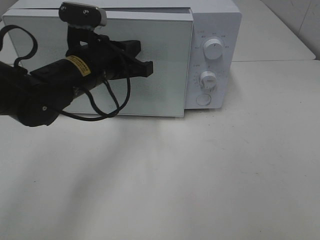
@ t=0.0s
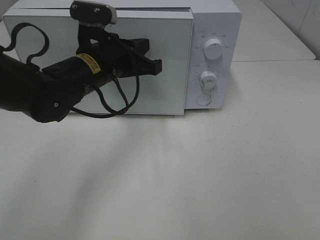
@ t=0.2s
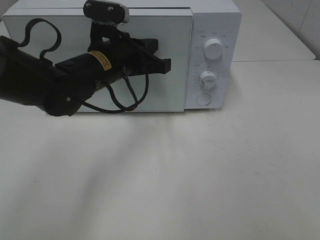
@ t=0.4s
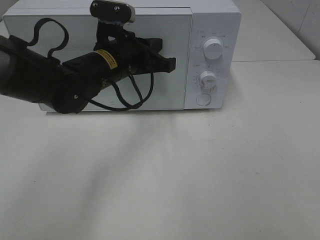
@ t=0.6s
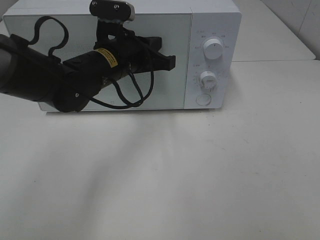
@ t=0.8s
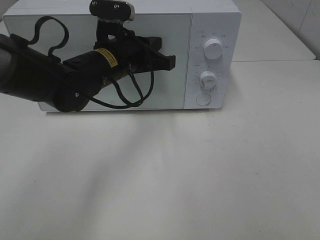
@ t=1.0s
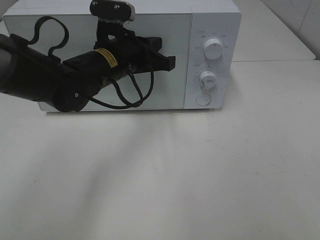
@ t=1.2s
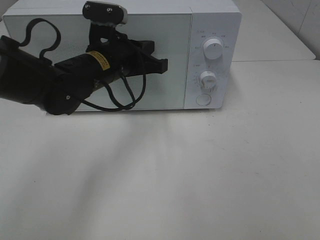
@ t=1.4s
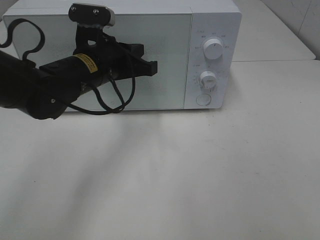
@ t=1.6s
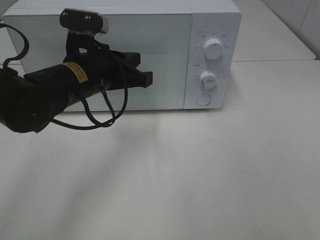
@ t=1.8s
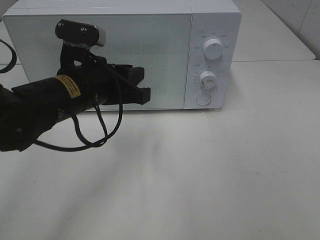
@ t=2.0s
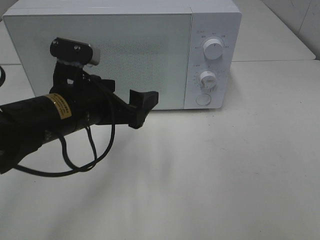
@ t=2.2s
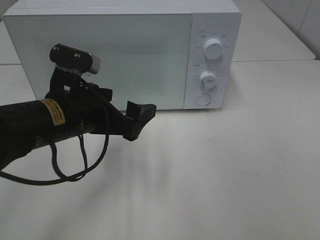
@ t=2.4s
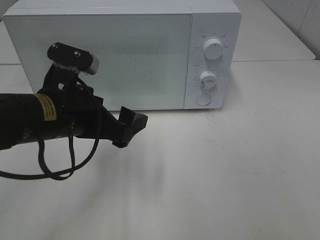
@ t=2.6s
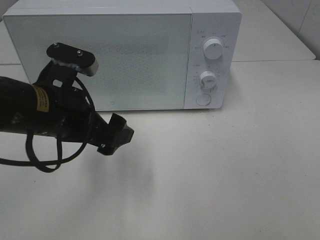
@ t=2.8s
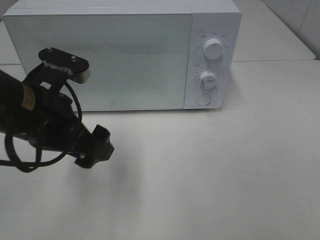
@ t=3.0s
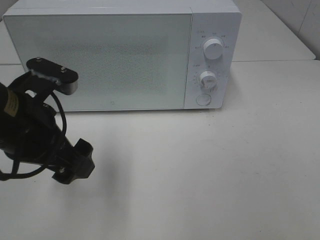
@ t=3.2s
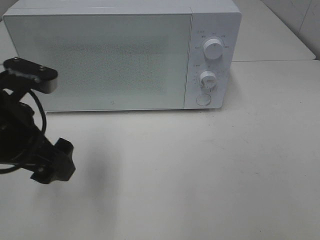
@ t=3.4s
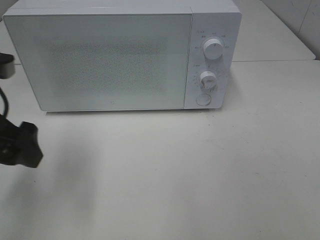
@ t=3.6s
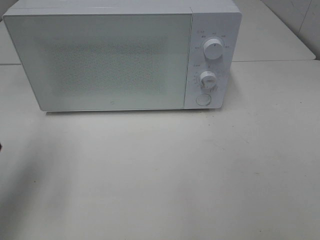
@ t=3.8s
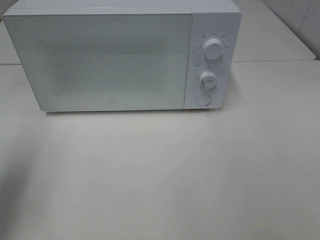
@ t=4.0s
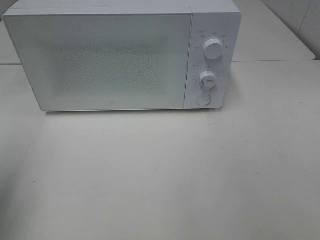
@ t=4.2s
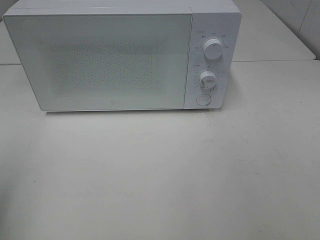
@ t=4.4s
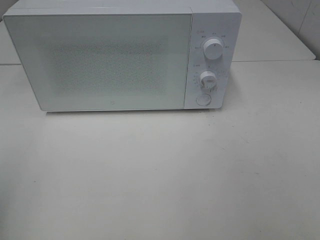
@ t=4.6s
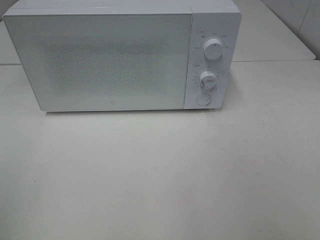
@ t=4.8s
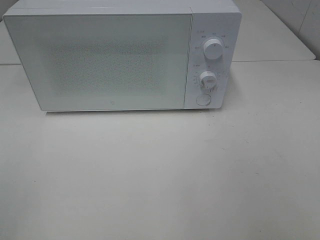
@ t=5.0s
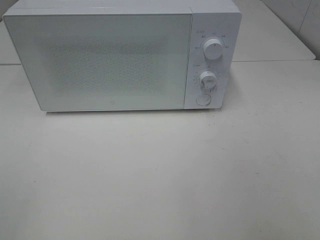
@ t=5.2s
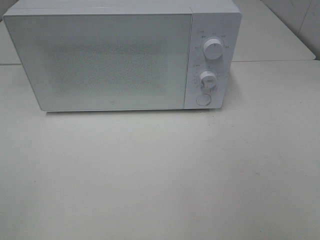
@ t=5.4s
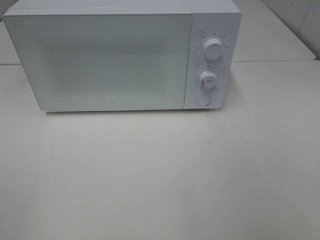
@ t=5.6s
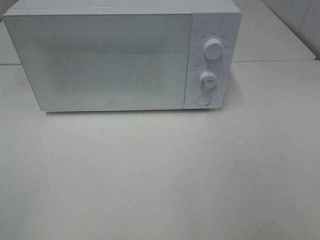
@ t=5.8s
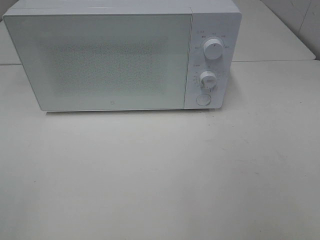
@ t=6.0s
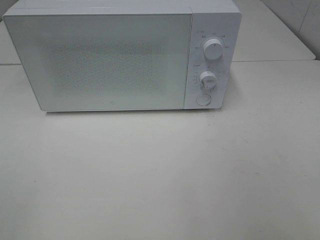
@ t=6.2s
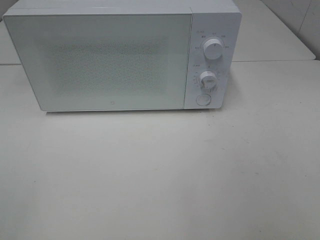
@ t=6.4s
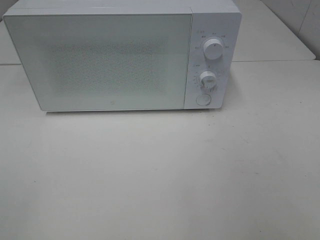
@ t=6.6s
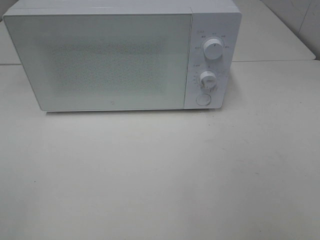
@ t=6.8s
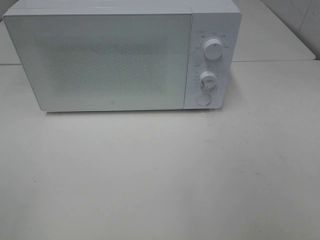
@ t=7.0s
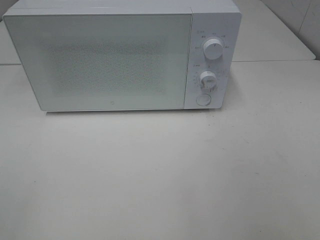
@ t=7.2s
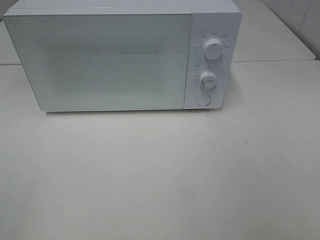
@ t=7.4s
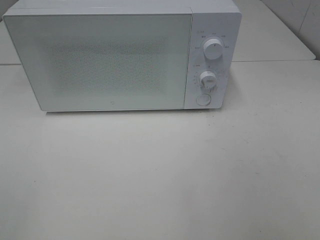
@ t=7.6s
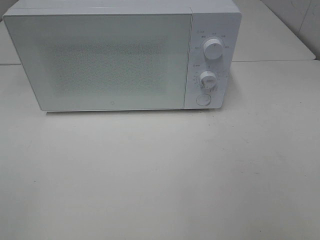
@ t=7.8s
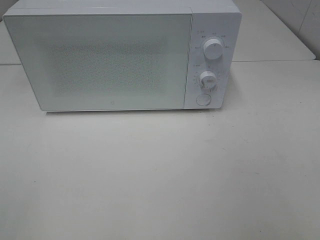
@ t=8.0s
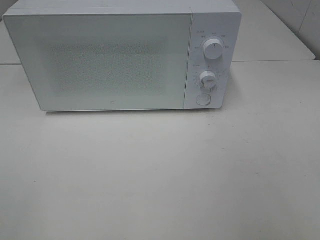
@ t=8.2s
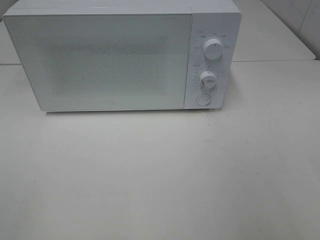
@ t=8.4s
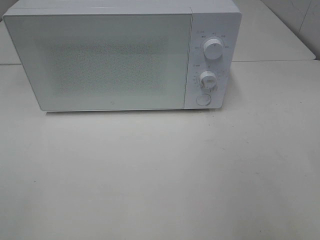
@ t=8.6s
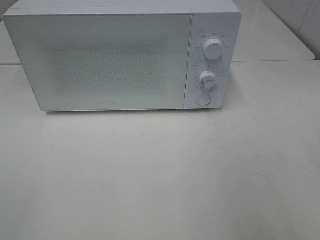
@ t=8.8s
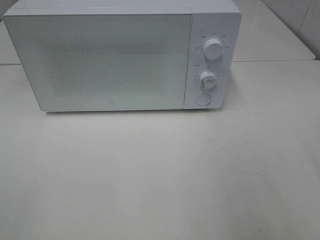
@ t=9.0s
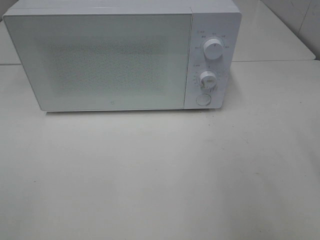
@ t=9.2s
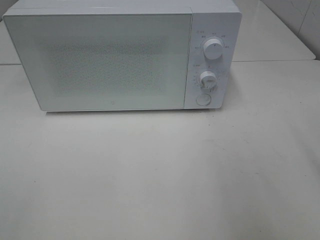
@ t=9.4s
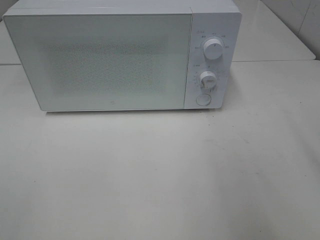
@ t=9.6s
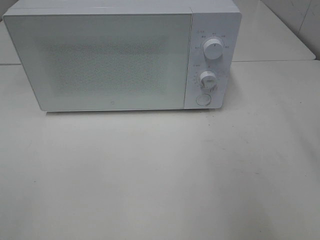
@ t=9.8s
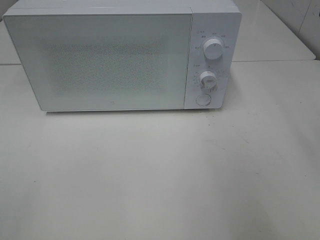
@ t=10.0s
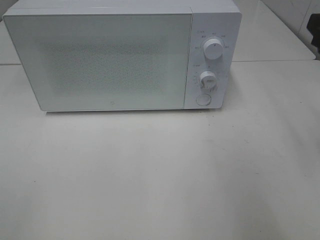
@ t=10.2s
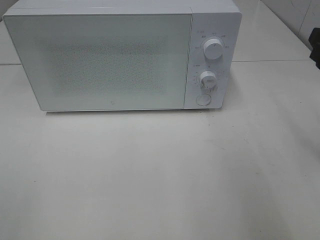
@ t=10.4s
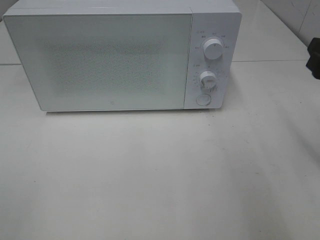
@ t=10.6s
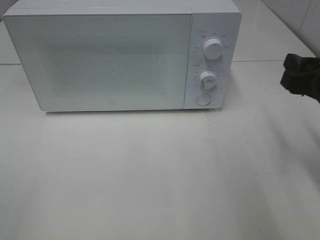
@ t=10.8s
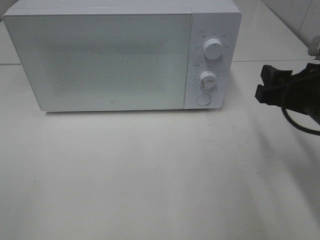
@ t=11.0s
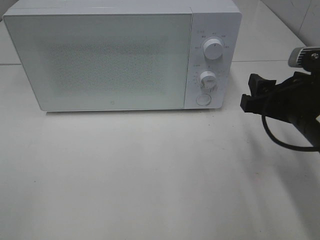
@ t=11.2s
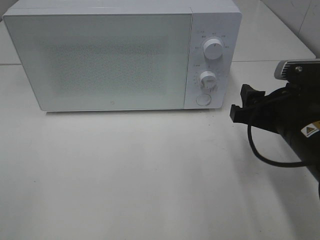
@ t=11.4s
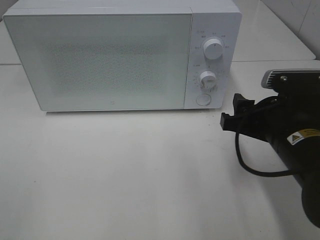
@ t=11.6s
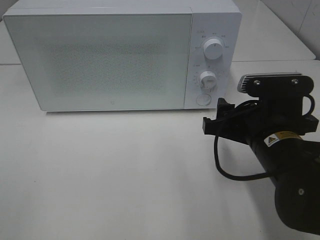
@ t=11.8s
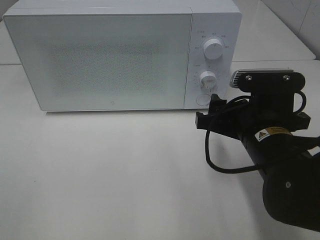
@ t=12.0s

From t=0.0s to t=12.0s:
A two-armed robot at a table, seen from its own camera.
Task of the whole recording: Heat Sandwich.
From t=0.0s to t=1.6s: The grippers make only small movements.
From t=1.6s to t=3.0s: The left gripper travels backward and to the left by some 10 cm, and opens its fingers.
From t=3.0s to t=4.4s: The left gripper shifts about 20 cm to the left, backward and upward.
From t=6.0s to t=7.6s: The two grippers keep their place.
From t=10.4s to t=12.0s: The right gripper is displaced to the left and downward by approximately 15 cm.

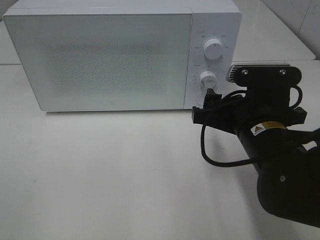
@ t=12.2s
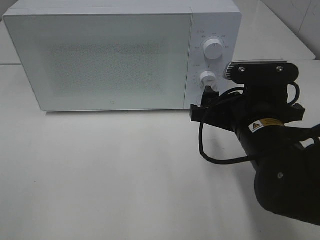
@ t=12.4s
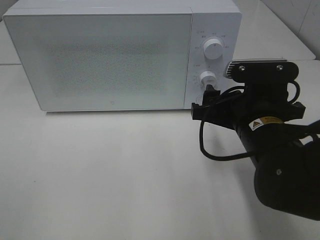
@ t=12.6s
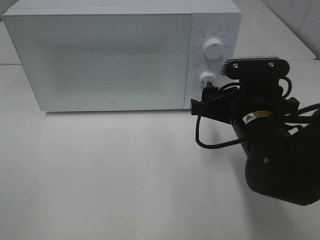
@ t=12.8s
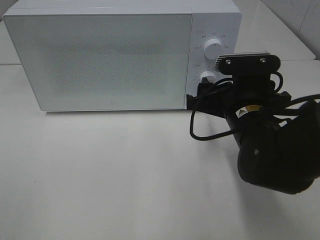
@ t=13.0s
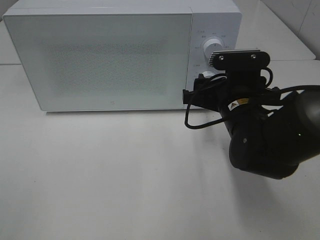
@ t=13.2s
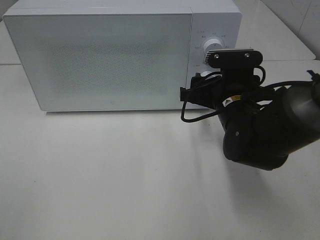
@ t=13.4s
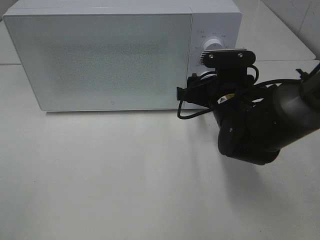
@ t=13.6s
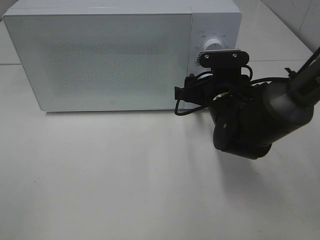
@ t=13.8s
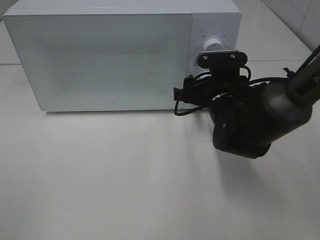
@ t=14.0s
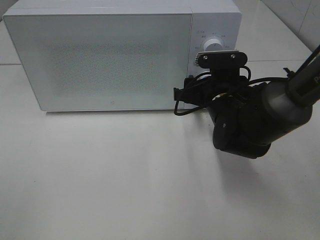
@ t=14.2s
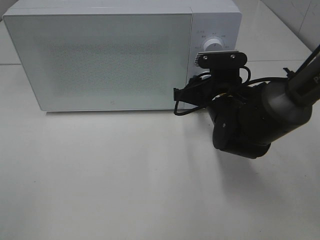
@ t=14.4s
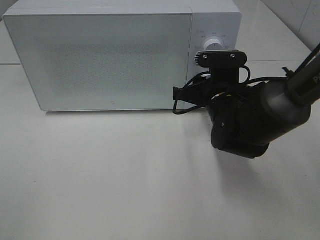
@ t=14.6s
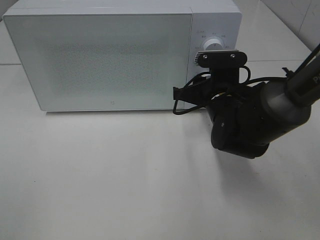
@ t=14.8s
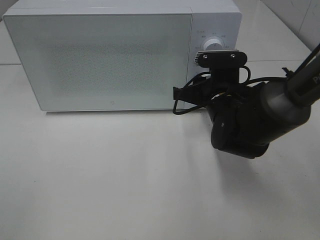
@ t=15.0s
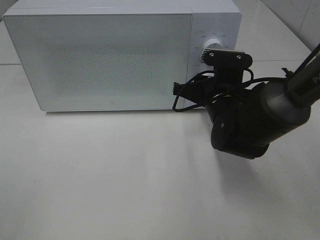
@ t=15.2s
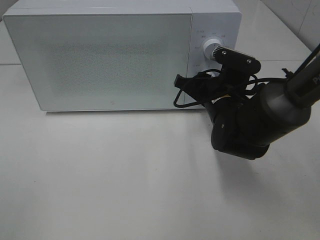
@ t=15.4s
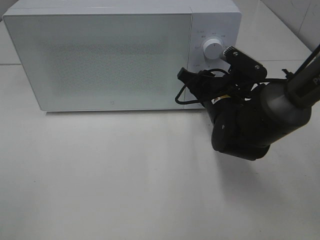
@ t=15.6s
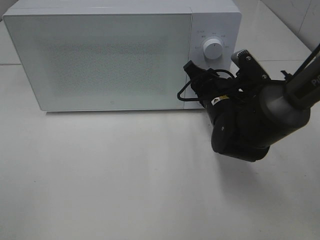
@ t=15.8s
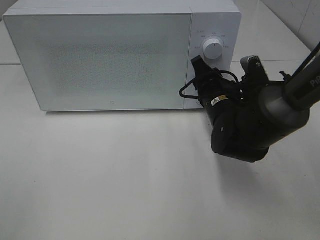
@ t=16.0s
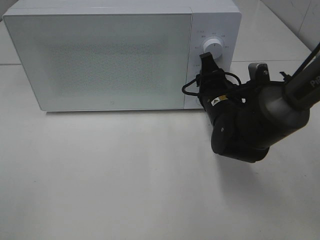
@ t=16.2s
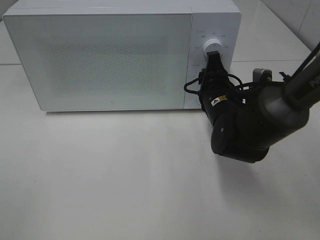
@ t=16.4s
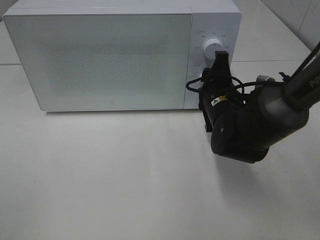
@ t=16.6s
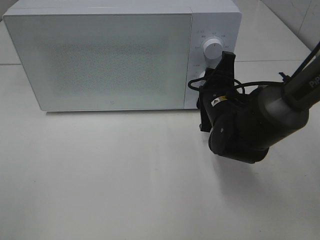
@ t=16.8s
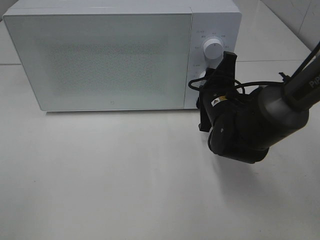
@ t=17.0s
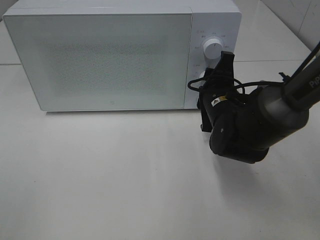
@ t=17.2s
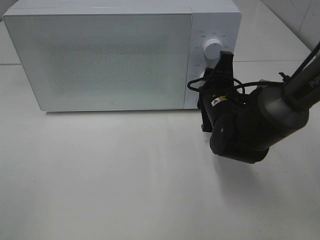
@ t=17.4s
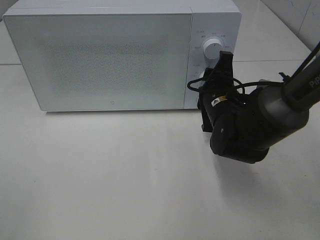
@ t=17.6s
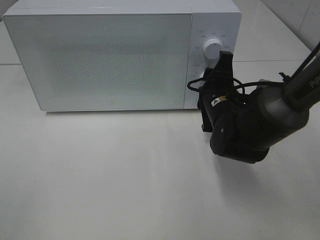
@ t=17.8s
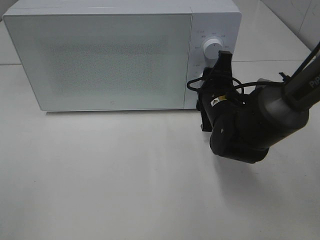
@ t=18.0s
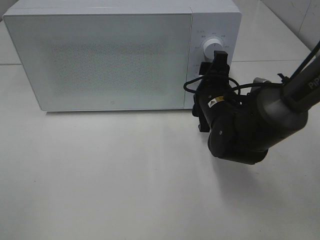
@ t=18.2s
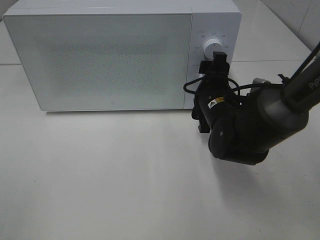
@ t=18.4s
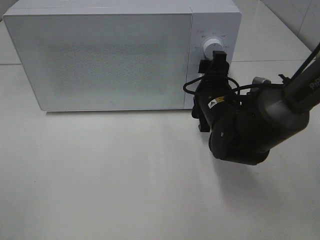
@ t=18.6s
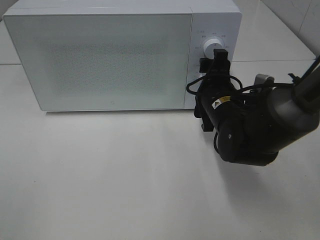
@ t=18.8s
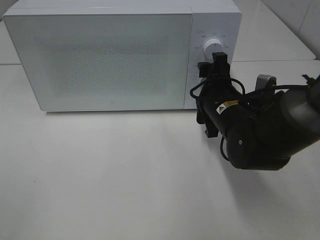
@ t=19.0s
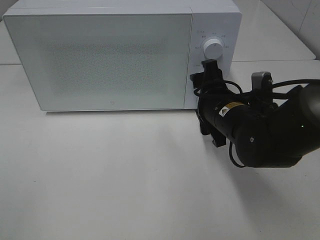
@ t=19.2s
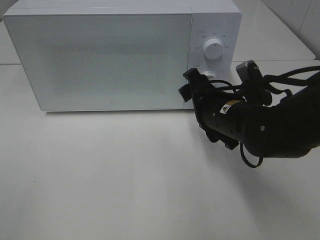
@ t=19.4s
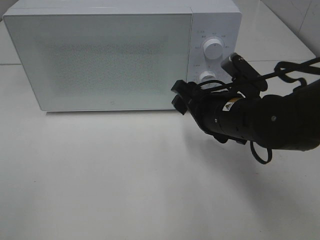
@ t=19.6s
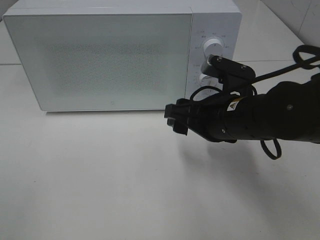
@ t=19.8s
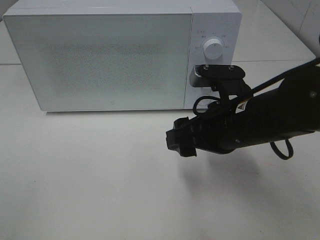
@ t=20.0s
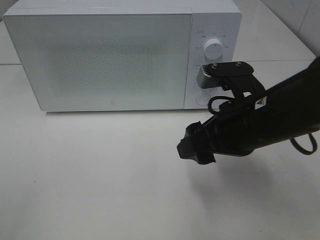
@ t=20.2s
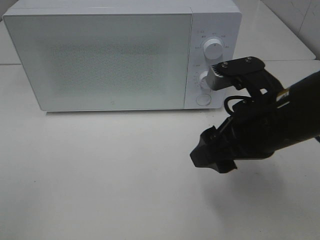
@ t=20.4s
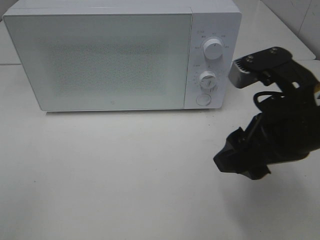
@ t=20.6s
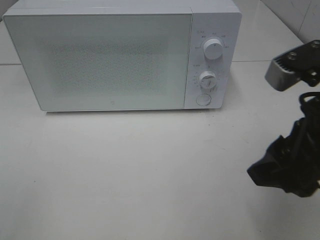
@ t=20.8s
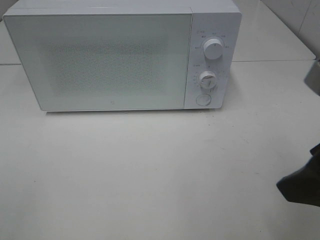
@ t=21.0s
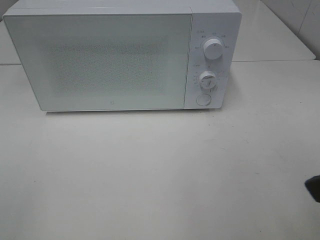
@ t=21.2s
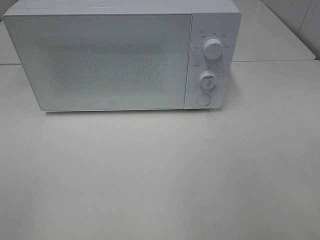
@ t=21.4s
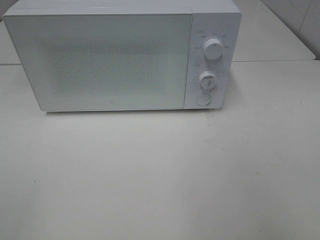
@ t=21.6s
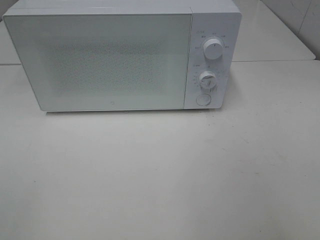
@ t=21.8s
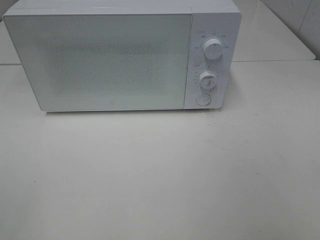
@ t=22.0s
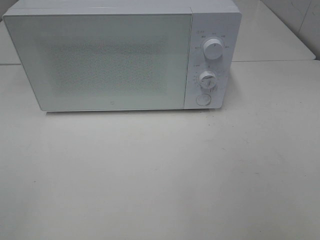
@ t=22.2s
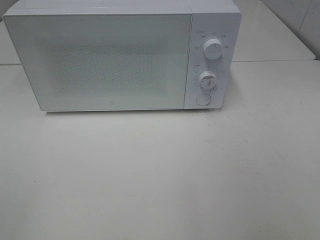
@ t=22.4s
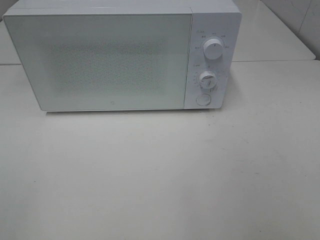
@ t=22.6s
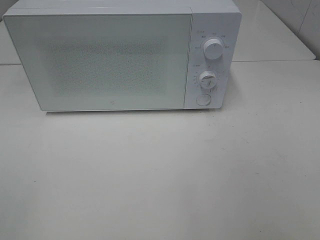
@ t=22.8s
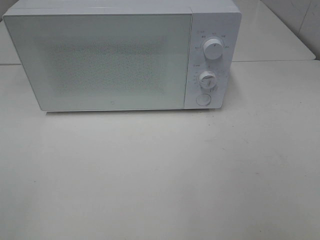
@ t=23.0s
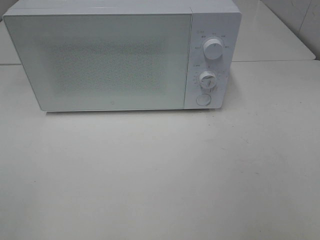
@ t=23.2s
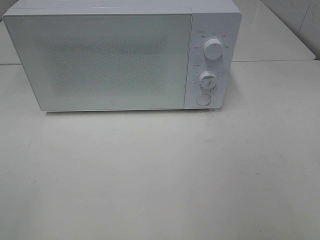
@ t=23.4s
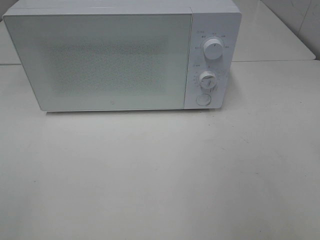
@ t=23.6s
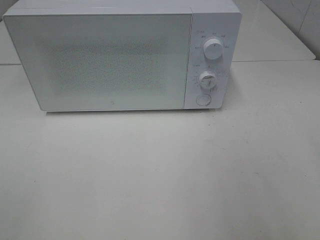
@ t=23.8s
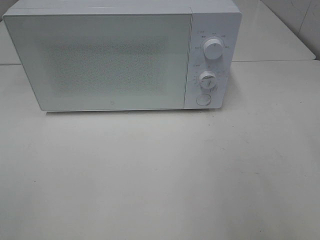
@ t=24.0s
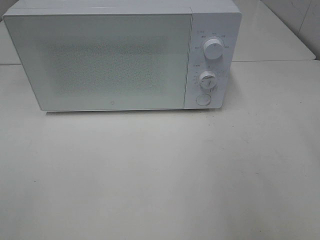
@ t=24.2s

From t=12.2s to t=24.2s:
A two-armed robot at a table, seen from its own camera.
Task of the whole recording: Heat Sandwich.
Step, from t=12.2s to t=19.2s: Right hand: twist timer button.
From t=12.2s to t=13.8s: The right gripper shifts some 10 cm forward.
From t=13.8s to t=15.2s: The right gripper closes its fingers.
From t=16.6s to t=18.2s: The grippers move only a little.
From t=18.2s to t=19.8s: The right gripper is displaced backward by about 5 cm.
From t=19.8s to t=21.2s: The right gripper goes approximately 25 cm backward, upward and to the right.
From t=21.2s to t=22.6s: The right gripper is displaced backward and to the right by some 10 cm.
